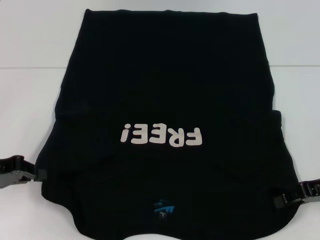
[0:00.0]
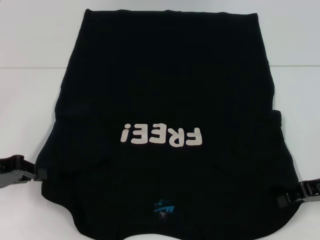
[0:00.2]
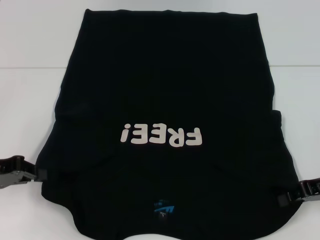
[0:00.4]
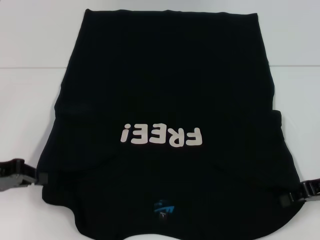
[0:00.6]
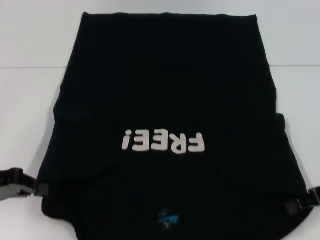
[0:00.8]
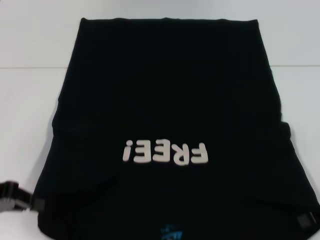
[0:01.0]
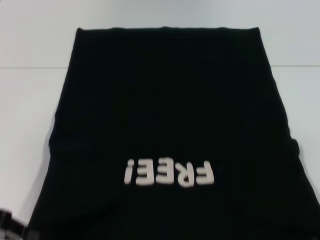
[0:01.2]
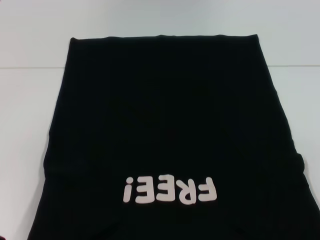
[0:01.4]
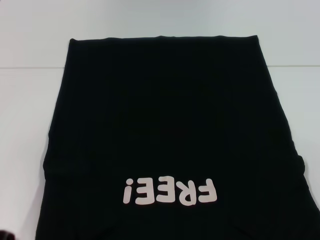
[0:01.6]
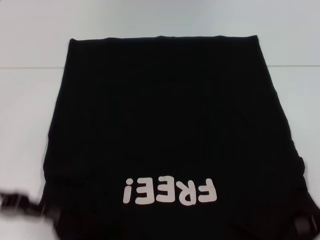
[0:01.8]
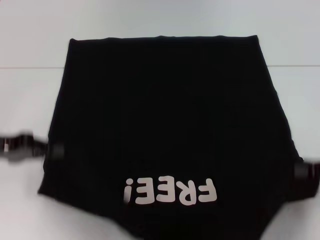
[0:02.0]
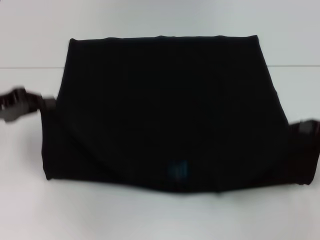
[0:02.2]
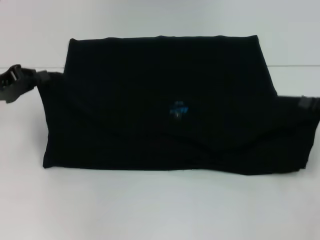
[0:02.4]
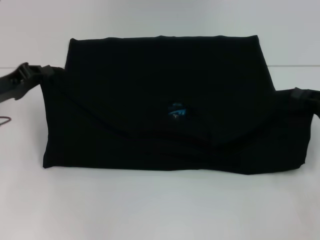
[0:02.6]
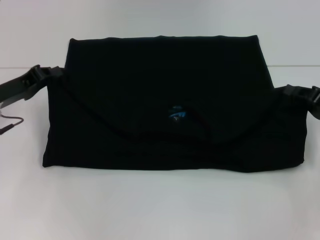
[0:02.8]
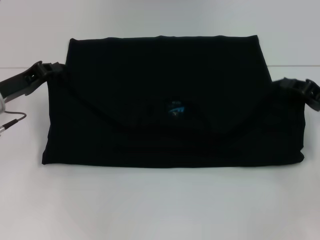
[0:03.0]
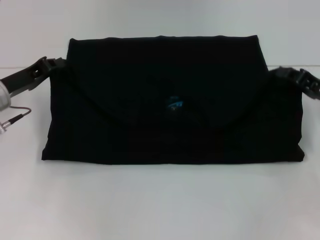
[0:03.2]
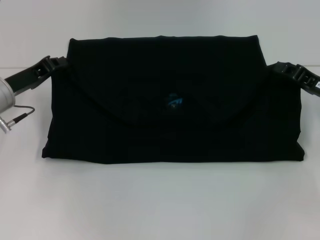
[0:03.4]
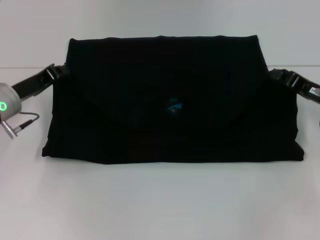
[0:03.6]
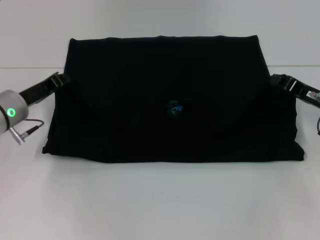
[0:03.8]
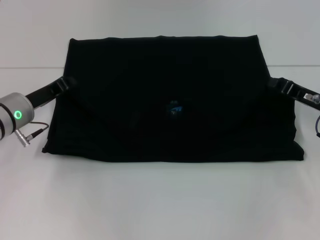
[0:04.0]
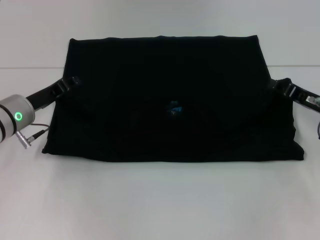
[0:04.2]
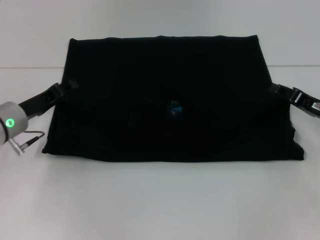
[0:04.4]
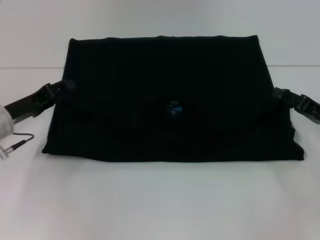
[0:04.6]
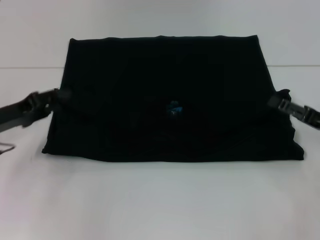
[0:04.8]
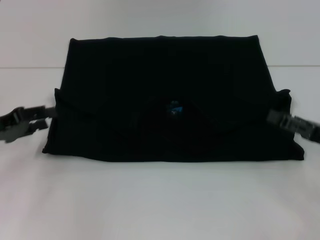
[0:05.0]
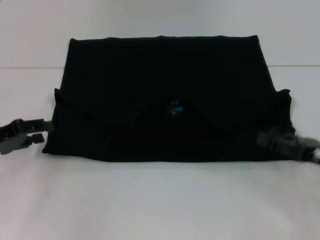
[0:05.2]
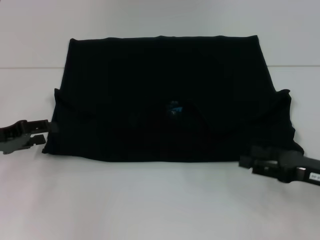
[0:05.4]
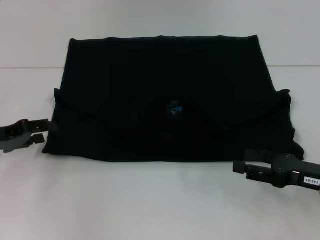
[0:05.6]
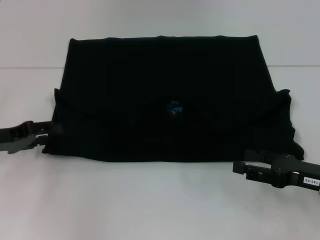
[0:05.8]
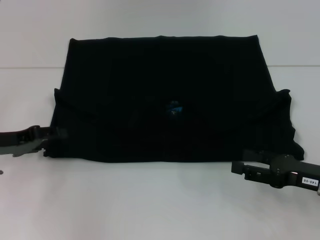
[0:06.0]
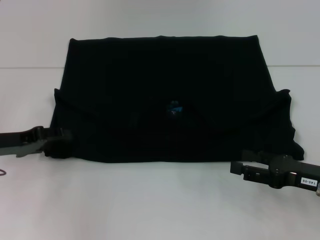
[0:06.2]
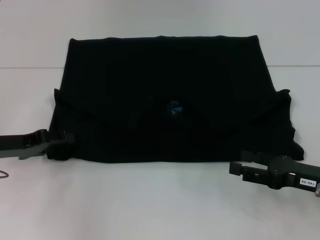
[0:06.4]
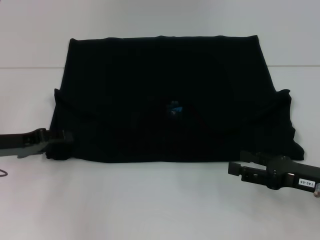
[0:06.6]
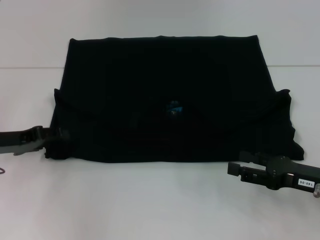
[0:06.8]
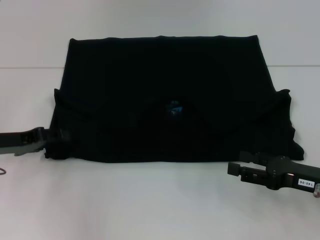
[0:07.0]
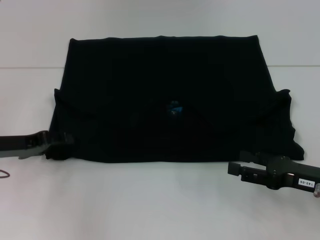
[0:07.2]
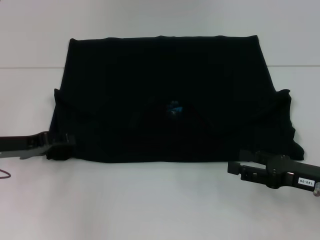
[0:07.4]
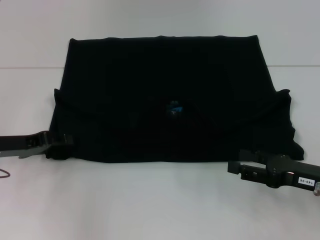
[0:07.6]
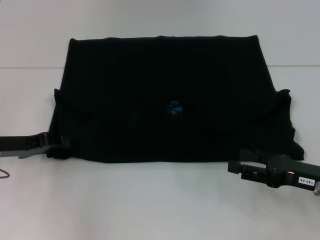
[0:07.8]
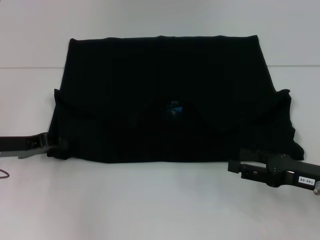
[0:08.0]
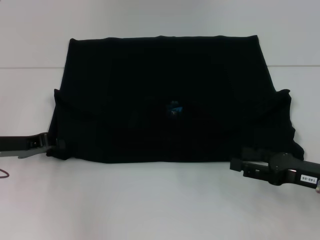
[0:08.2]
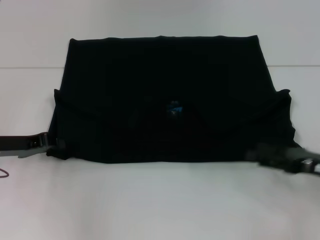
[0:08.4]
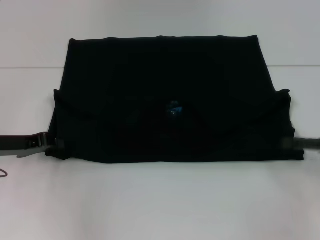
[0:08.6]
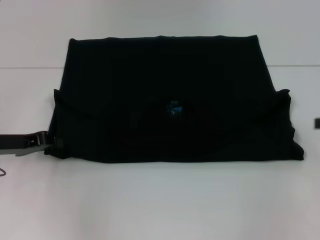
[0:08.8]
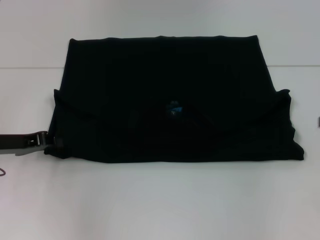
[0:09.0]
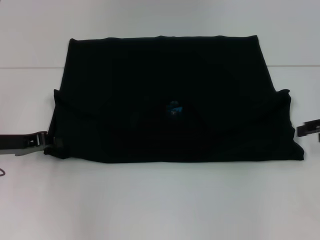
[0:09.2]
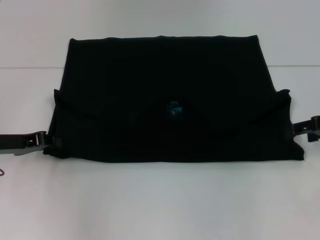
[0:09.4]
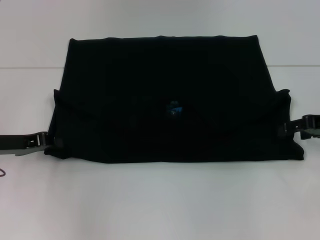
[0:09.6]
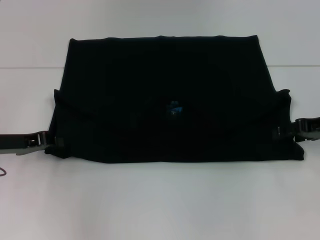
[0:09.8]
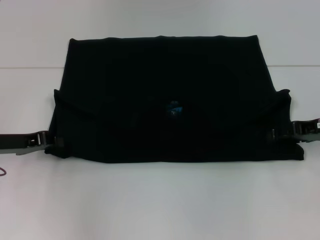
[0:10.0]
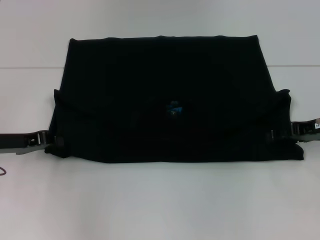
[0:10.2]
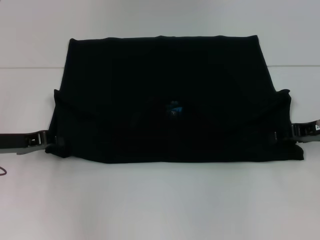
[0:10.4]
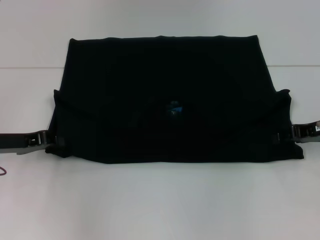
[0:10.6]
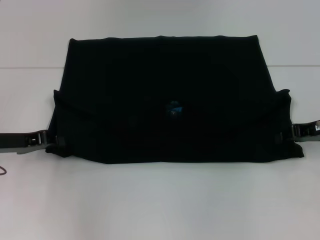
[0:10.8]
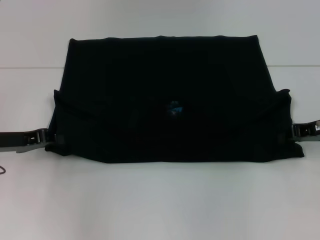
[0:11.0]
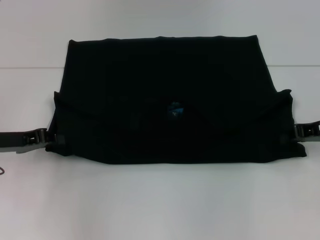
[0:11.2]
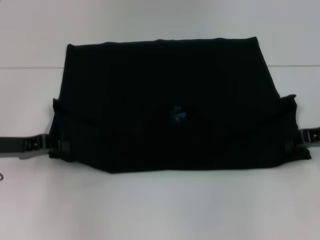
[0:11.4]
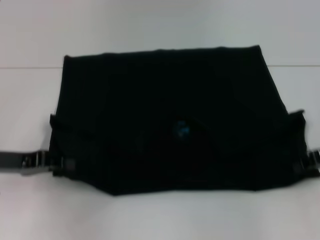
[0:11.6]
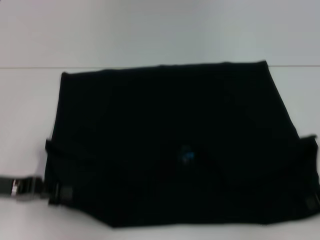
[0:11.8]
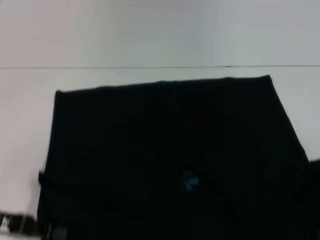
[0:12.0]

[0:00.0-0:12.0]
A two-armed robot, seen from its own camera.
Step, 0:00.8 to 0:04.6: Fold the clothes with your left hand.
Step, 0:00.8 to 0:04.6: Fold the clothes with your right hand.
0:00.0 to 0:01.6: The grippers both shift backward by about 5 cm. The right gripper closes up.
0:01.6 to 0:03.0: The two grippers go about 10 cm forward.
0:03.0 to 0:04.4: The right gripper opens its fingers; the left gripper opens its fingers.
0:04.4 to 0:06.0: The left gripper travels to the left by roughly 5 cm. The right gripper moves backward, some 10 cm, and opens up.
0:06.0 to 0:07.6: The grippers move only a little.
0:07.6 to 0:09.0: The left gripper closes. The right gripper moves upward, to the right and forward, approximately 15 cm.
0:09.0 to 0:10.4: The right gripper heads to the left and downward, covering some 10 cm.
0:10.4 to 0:12.0: The right gripper moves backward and to the right, about 10 cm, and closes up, while the left gripper goes about 10 cm backward.

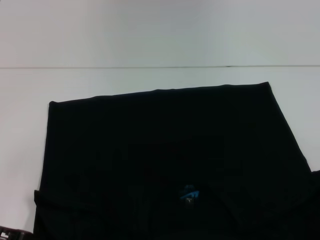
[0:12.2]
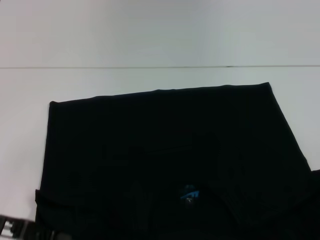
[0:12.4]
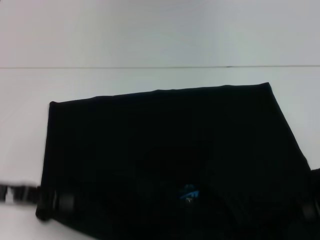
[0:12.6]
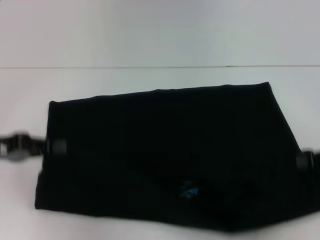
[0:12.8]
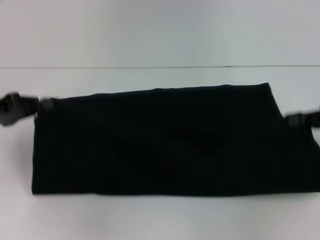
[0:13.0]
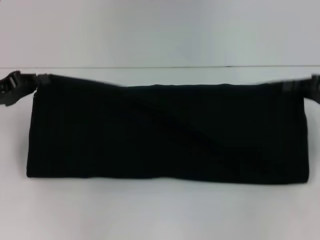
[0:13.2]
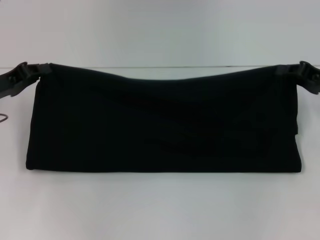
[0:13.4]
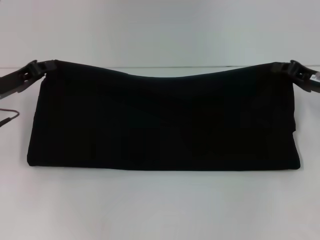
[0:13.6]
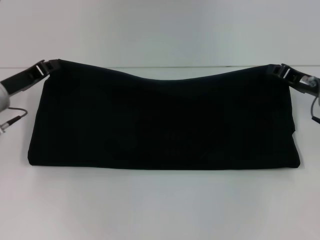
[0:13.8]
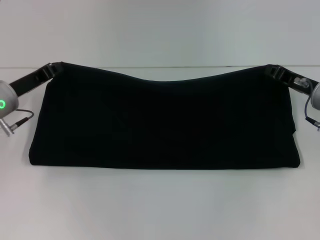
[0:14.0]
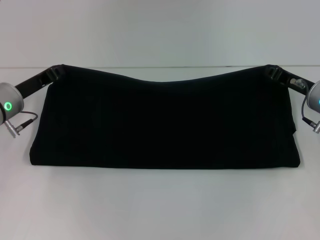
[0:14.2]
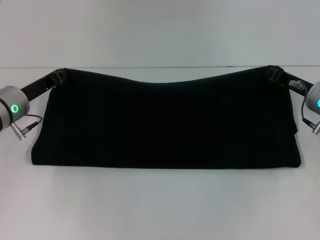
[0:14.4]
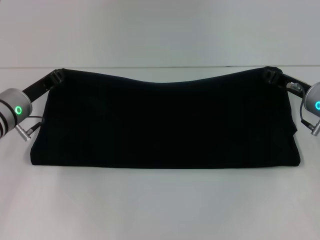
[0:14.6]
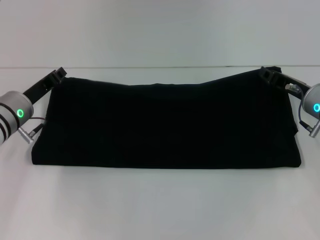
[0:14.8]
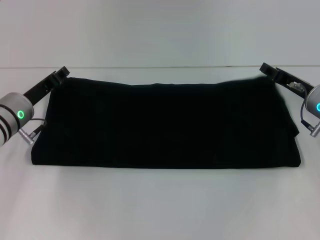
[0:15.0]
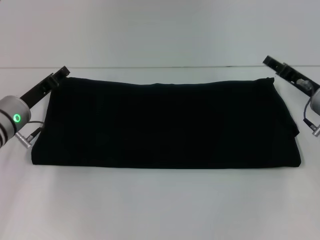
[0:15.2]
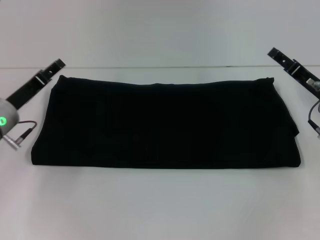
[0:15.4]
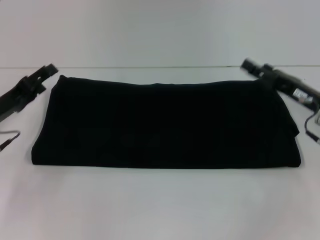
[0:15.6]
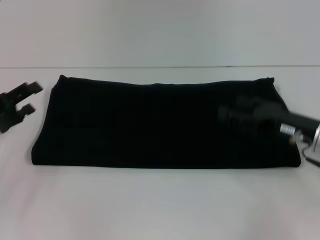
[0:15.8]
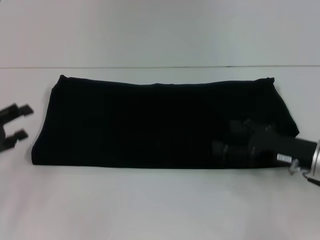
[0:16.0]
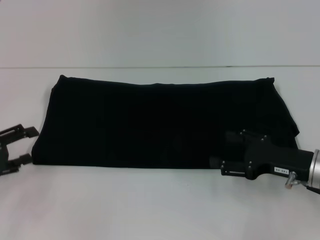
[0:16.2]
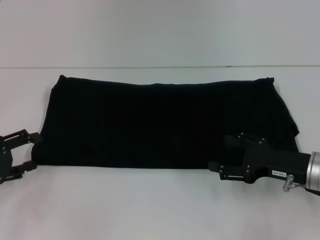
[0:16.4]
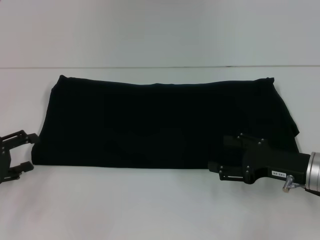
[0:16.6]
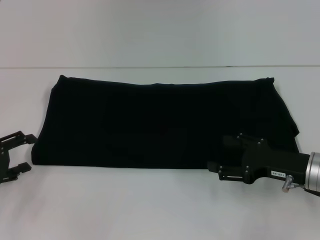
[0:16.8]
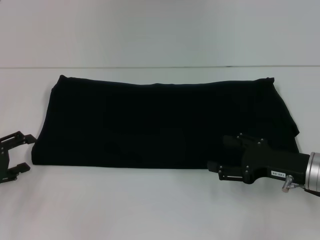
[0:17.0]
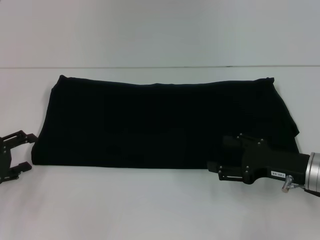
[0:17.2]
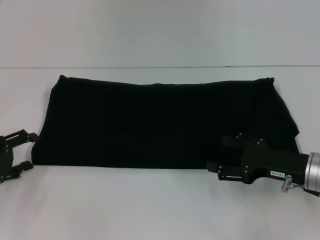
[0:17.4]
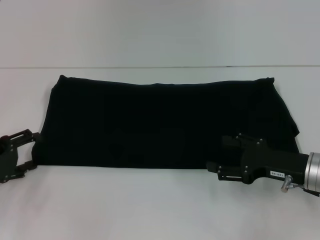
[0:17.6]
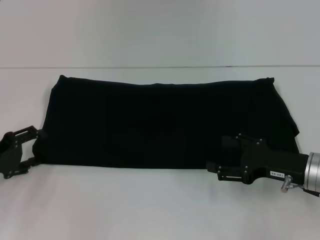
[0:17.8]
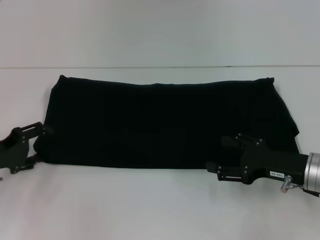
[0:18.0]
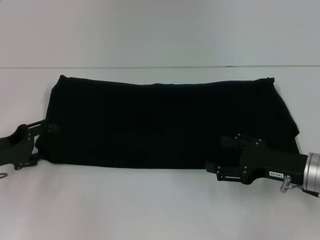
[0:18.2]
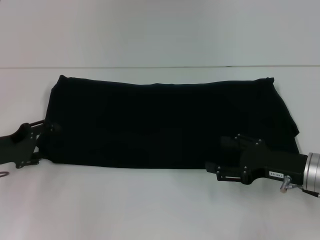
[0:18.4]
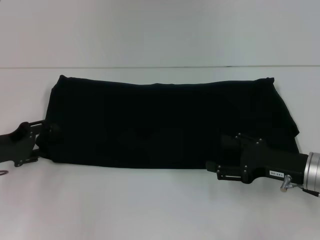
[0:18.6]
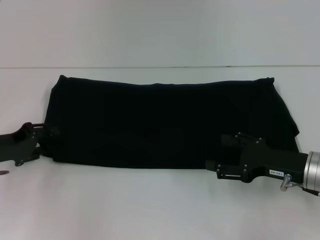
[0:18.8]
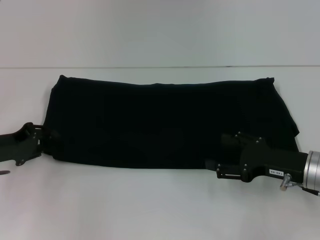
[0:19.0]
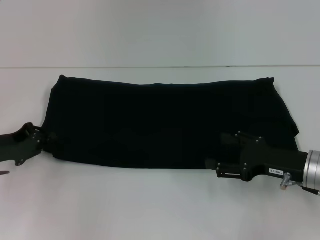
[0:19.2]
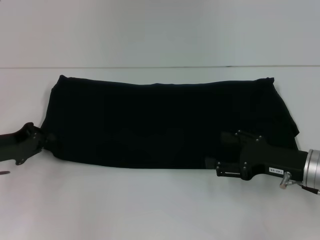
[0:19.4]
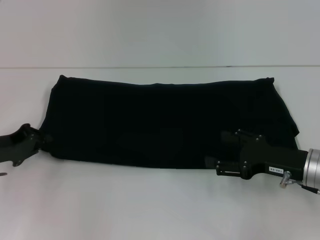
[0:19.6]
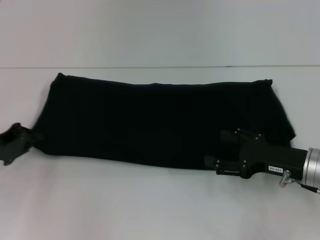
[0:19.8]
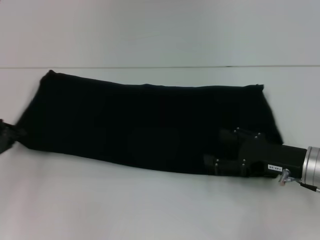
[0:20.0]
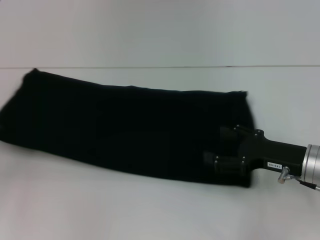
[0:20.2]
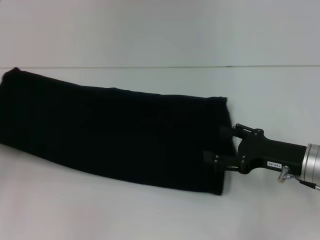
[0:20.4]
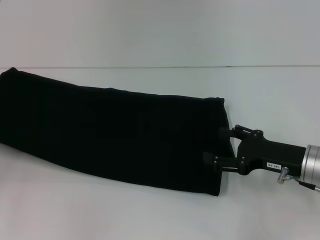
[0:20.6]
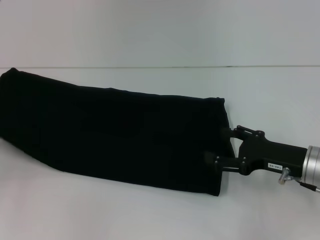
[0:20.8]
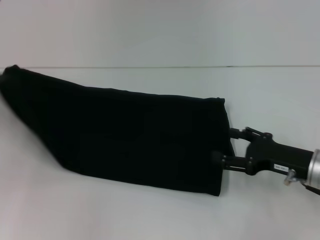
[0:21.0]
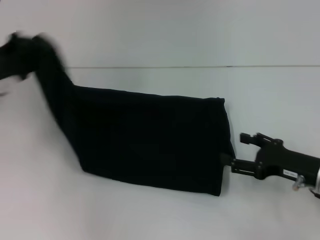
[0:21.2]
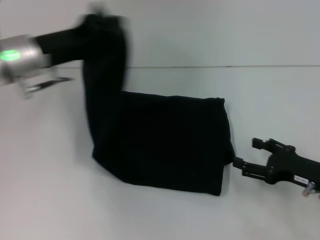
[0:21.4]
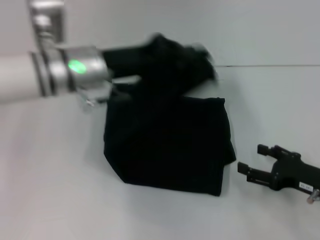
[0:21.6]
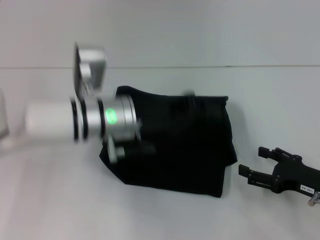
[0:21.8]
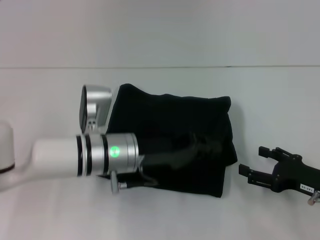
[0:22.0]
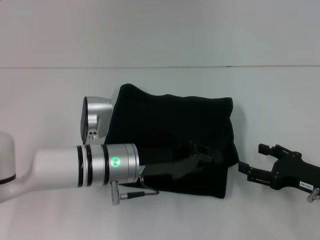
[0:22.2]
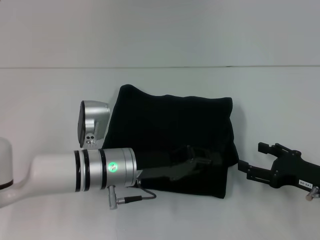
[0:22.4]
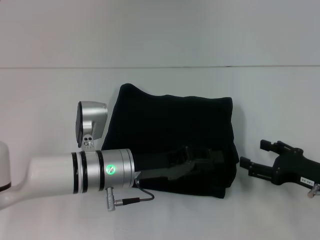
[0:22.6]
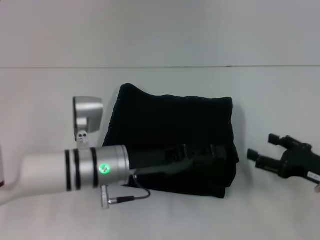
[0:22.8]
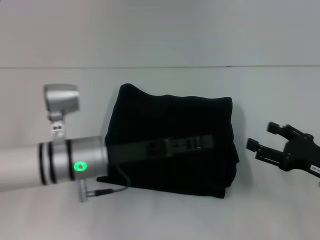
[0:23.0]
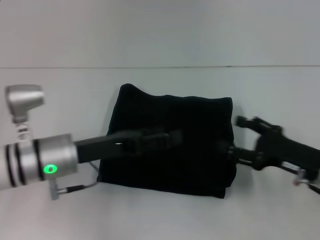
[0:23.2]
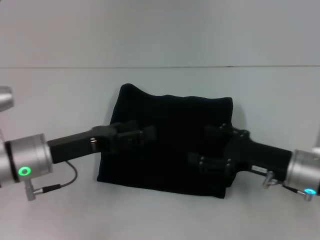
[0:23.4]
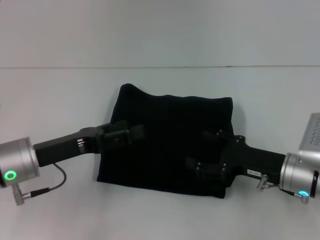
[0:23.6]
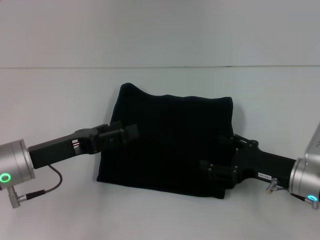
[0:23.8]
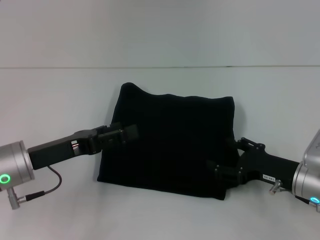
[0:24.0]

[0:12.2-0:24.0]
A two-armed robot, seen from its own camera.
Step, 0:12.2 to 0:15.2: Fold the clothes with your right hand.
Step, 0:12.2 to 0:22.8: Fold the clothes with your left hand.
0:12.2 to 0:13.6: The left gripper heads forward, covering about 15 cm. Meanwhile the right gripper heads forward and to the left, covering about 15 cm.
0:13.6 to 0:15.2: The left gripper changes place by approximately 5 cm, and opens, while the right gripper opens.
0:15.2 to 0:16.6: The left gripper heads backward and to the left, covering about 15 cm, and opens its fingers. Meanwhile the right gripper travels backward by approximately 10 cm, and opens up.
0:16.6 to 0:18.2: The left gripper changes place by approximately 5 cm.
0:18.2 to 0:19.6: The left gripper closes its fingers.
0:19.6 to 0:21.0: The left gripper goes about 10 cm upward and to the left.
0:21.0 to 0:22.6: The left gripper shifts some 25 cm to the right. The right gripper moves about 5 cm.
0:22.6 to 0:24.0: The right gripper moves to the left, approximately 5 cm. Meanwhile the left gripper heads to the left, covering approximately 15 cm, and opens its fingers.
